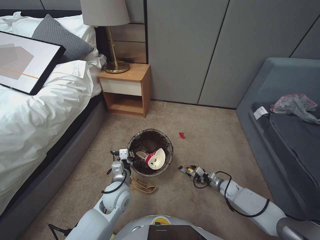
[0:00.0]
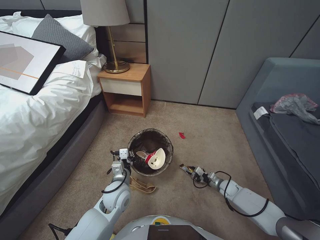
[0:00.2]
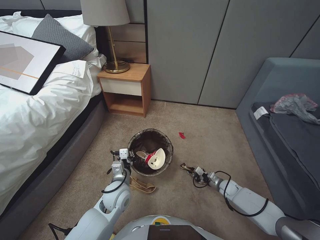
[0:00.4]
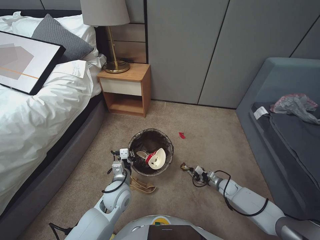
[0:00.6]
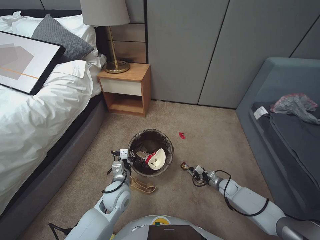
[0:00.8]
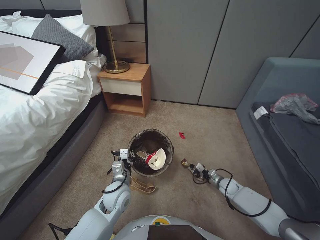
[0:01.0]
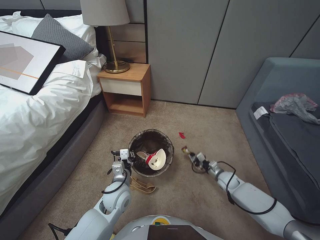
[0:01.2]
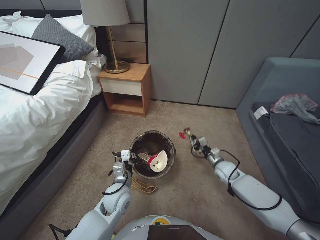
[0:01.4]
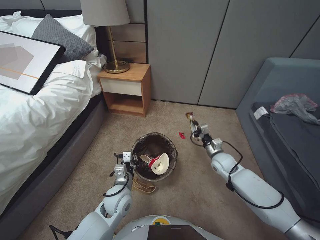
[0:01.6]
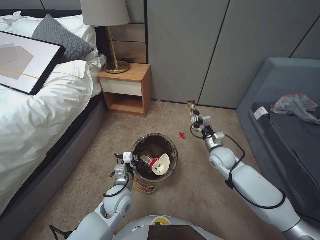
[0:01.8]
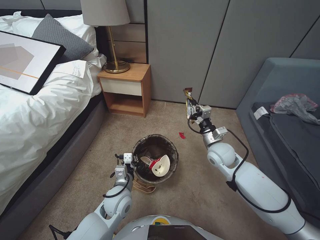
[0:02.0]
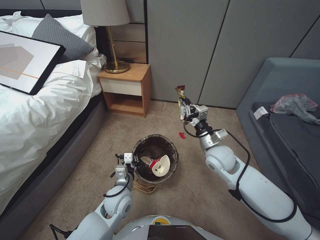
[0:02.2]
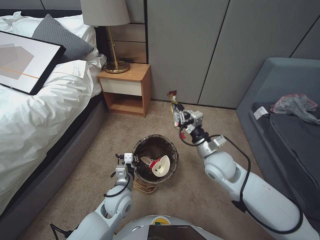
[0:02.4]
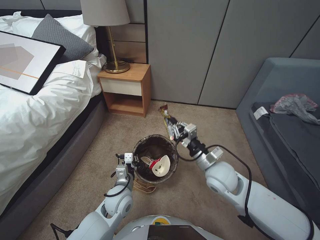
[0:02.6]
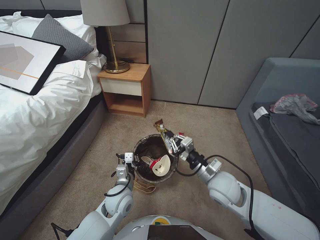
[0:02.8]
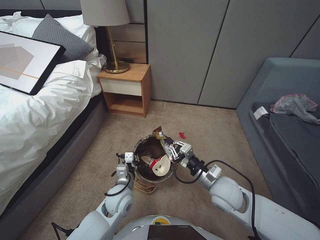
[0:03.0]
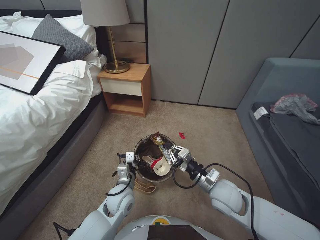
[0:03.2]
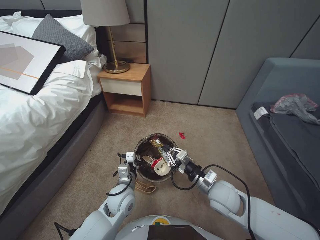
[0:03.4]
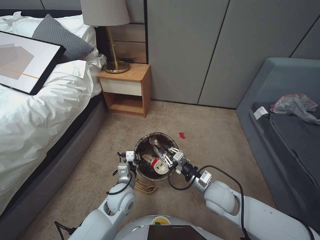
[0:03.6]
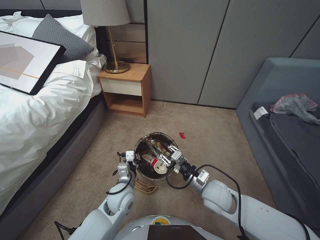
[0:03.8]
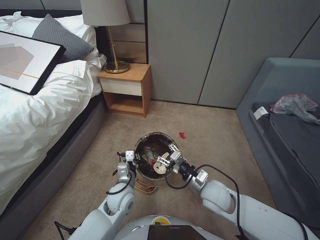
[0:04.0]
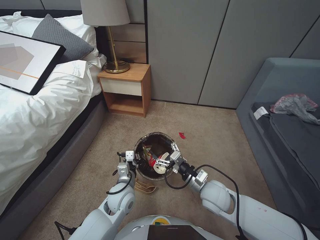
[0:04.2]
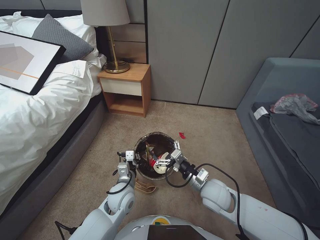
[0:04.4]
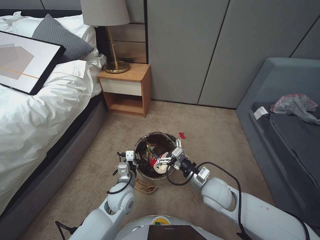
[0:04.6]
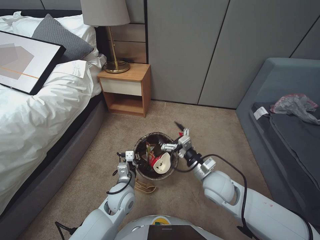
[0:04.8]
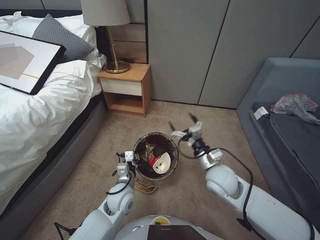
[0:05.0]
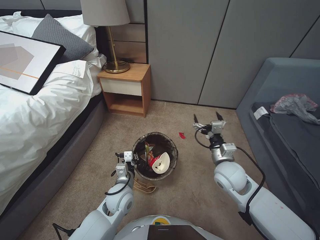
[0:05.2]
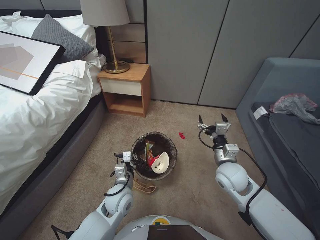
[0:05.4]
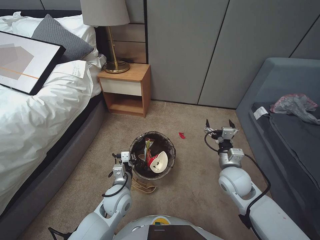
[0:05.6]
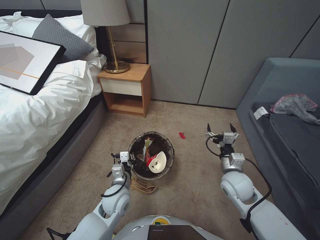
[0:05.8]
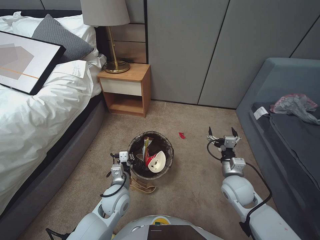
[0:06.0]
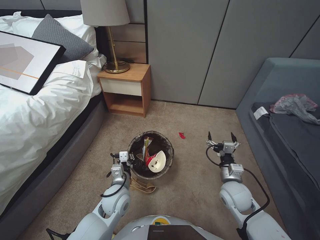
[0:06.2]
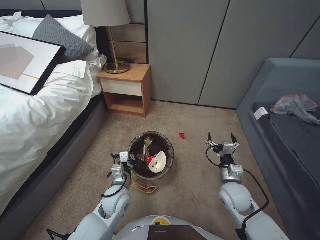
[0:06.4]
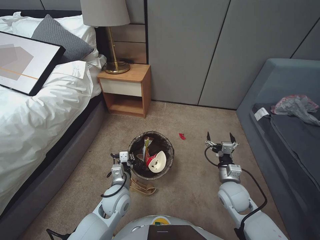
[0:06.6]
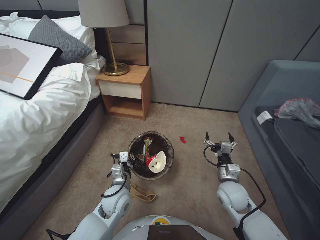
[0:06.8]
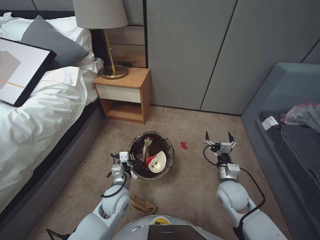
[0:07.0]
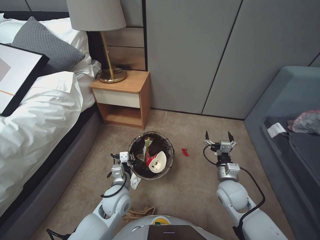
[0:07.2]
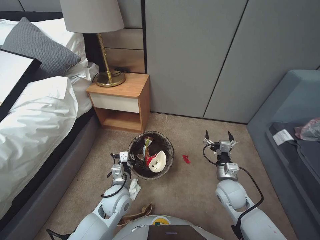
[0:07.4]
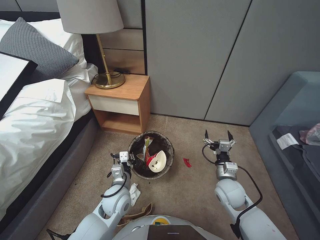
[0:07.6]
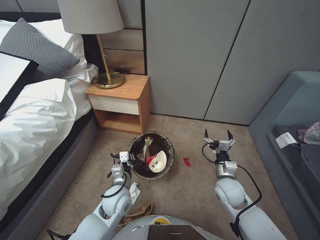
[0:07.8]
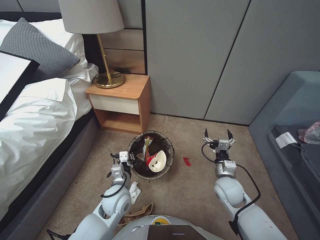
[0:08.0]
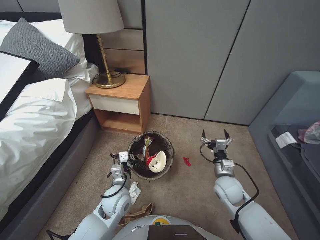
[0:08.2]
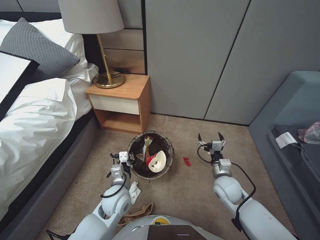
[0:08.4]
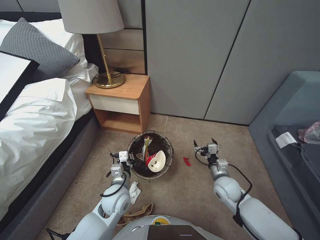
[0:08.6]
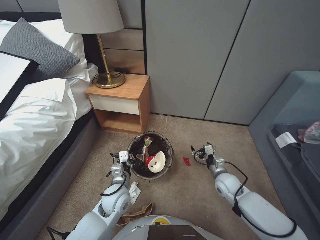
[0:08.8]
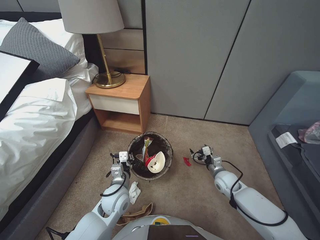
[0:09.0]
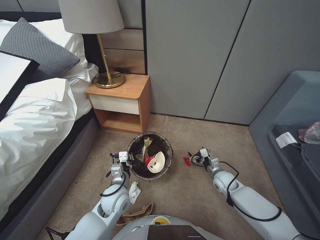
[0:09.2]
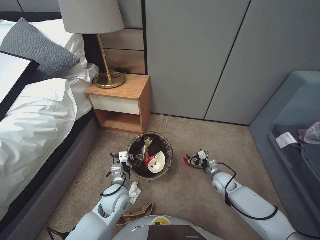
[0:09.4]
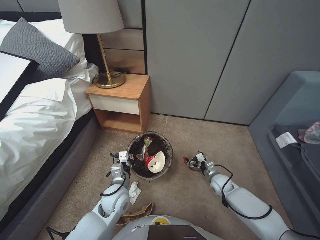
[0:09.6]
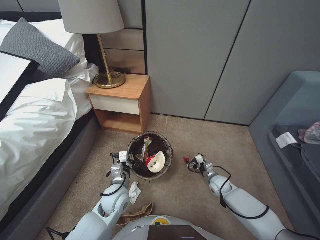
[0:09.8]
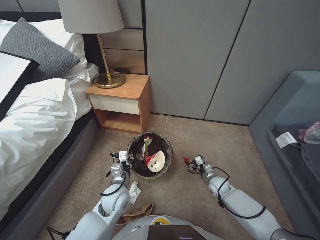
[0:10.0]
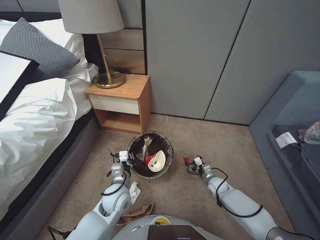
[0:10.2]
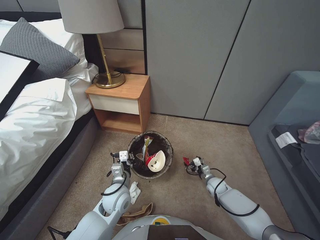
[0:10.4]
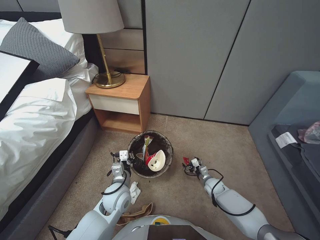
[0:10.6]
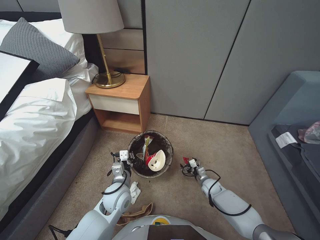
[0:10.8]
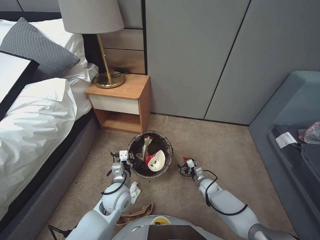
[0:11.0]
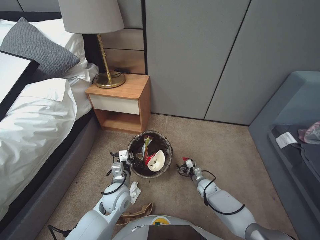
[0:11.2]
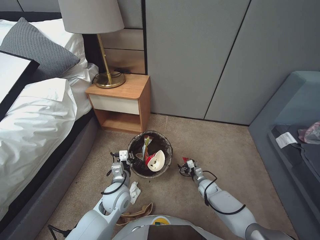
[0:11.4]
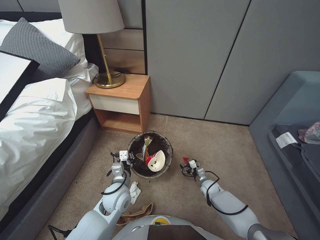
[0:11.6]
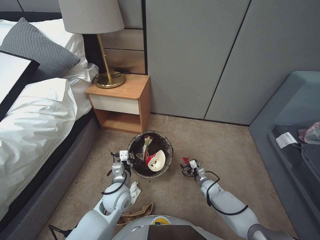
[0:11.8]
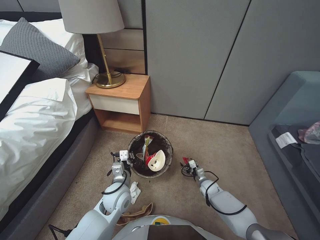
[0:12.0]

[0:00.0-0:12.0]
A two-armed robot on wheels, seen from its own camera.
Task of the whole recording: Pick up the trash bin, then pick up the garbage from the floor and place it into the trash bin.
0:00.0 to 0:01.6: The right gripper shifts about 20 cm upward and to the left, and closes up.
0:01.6 to 0:03.0: The right gripper travels backward, upward and to the left by about 20 cm.
0:03.0 to 0:04.4: The right gripper opens.
0:04.4 to 0:06.0: The right gripper moves to the right, some 5 cm.
0:06.0 to 0:07.6: The right gripper travels downward by about 5 cm.
0:07.6 to 0:09.0: The right gripper goes approximately 5 cm downward.
0:09.0 to 0:10.4: The right gripper goes approximately 15 cm downward.
0:10.4 to 0:12.0: The grippers stay close to where they were, moving slightly.

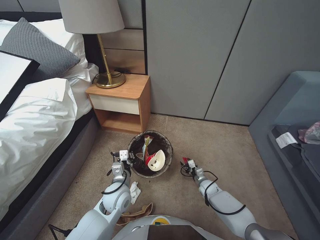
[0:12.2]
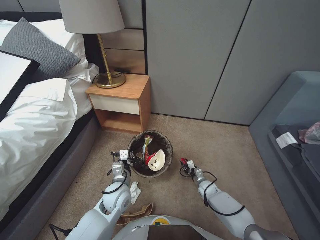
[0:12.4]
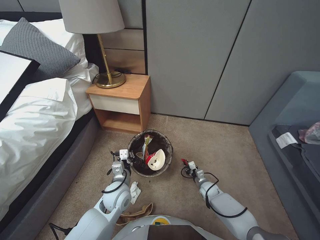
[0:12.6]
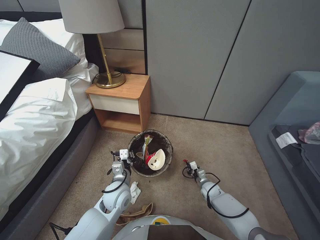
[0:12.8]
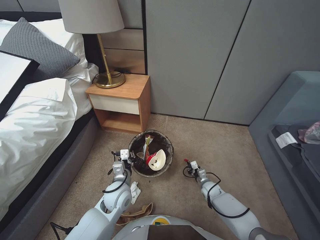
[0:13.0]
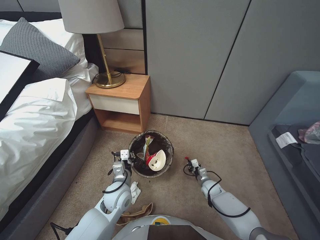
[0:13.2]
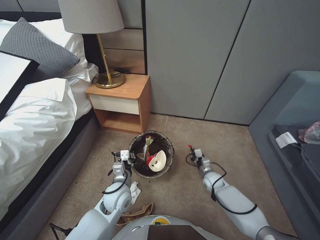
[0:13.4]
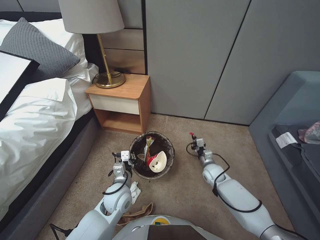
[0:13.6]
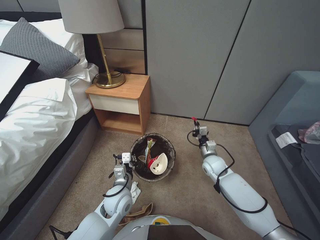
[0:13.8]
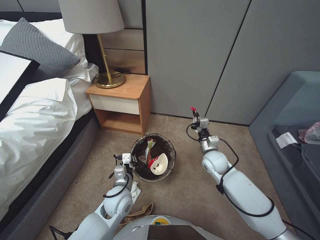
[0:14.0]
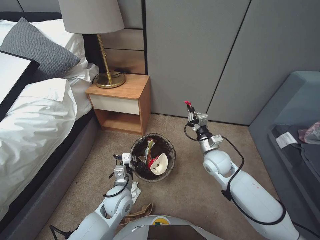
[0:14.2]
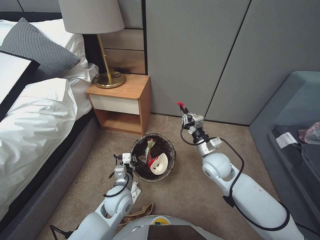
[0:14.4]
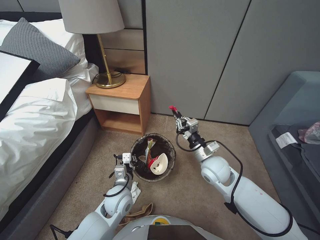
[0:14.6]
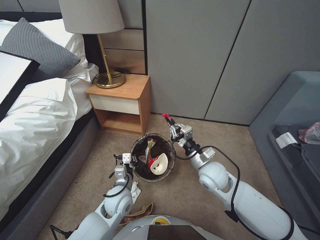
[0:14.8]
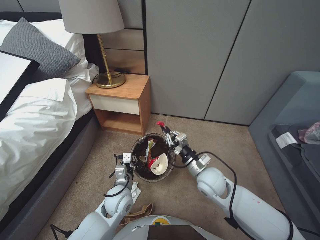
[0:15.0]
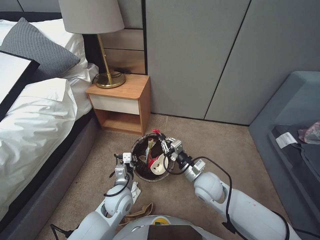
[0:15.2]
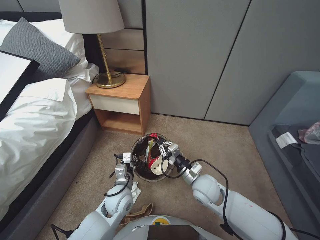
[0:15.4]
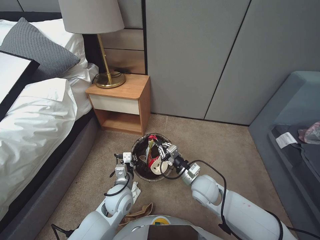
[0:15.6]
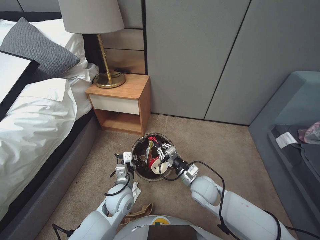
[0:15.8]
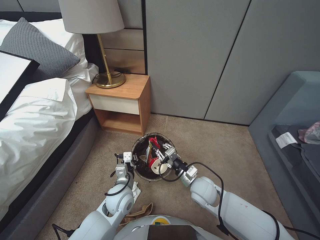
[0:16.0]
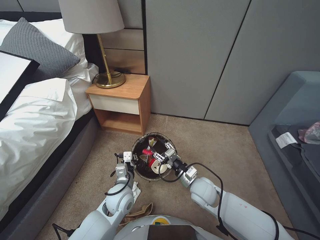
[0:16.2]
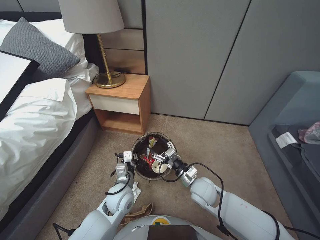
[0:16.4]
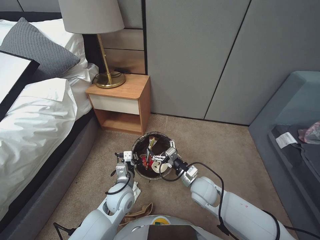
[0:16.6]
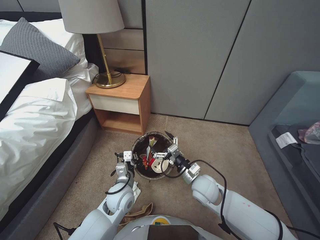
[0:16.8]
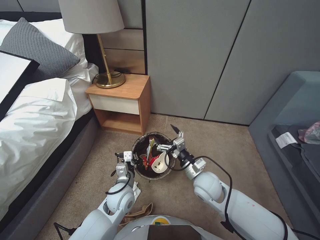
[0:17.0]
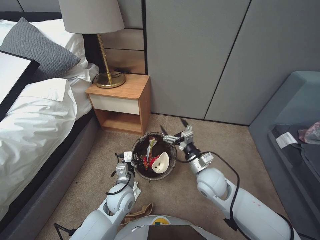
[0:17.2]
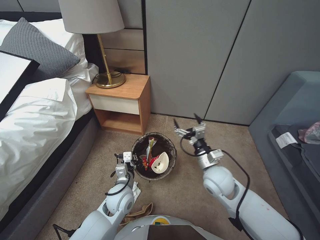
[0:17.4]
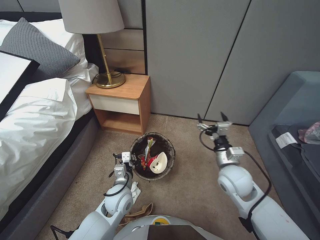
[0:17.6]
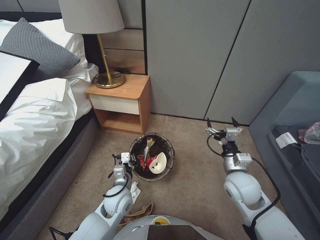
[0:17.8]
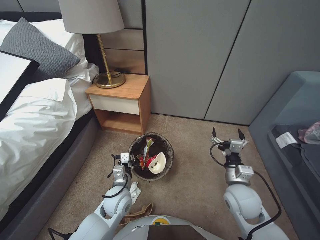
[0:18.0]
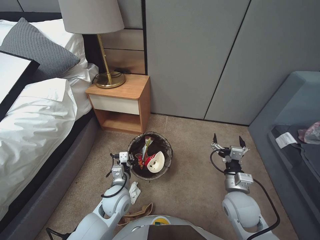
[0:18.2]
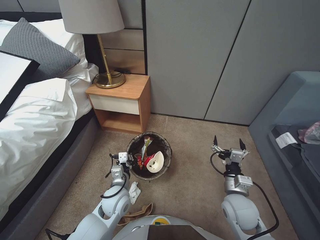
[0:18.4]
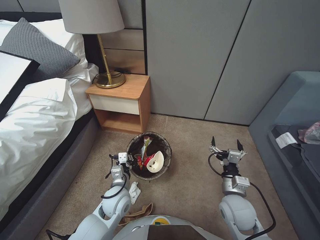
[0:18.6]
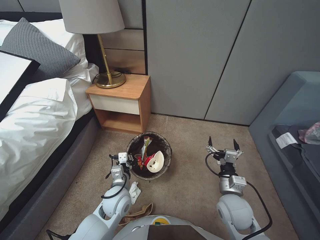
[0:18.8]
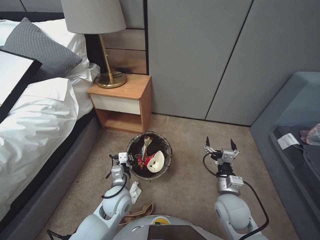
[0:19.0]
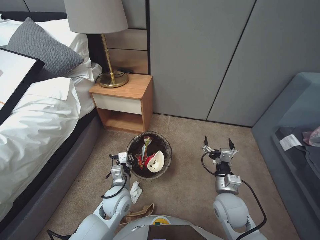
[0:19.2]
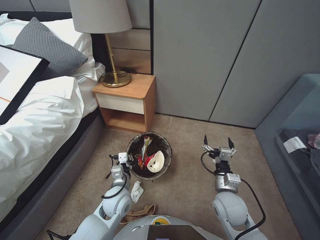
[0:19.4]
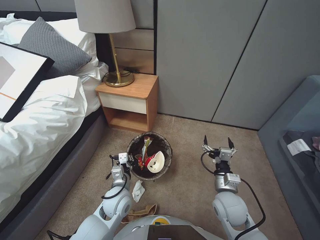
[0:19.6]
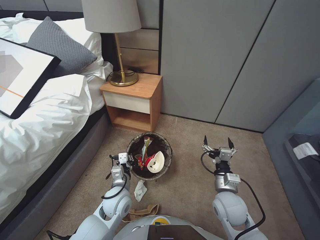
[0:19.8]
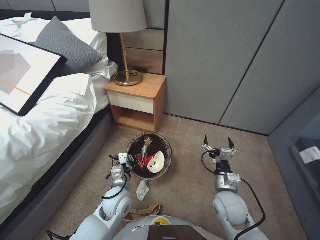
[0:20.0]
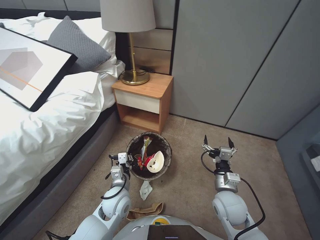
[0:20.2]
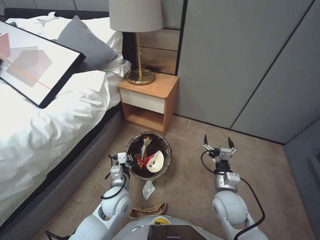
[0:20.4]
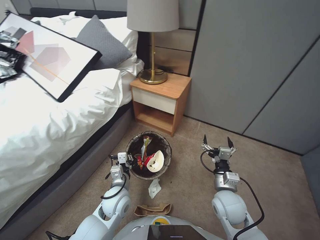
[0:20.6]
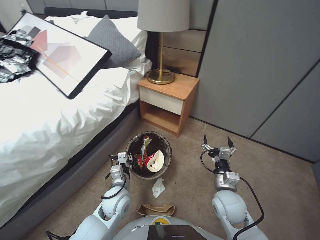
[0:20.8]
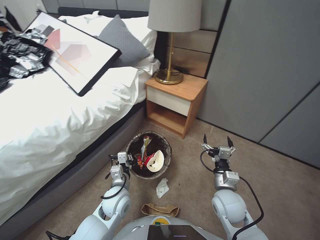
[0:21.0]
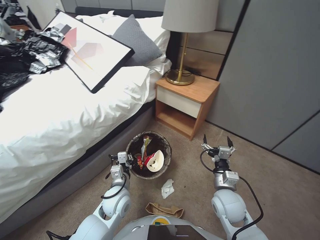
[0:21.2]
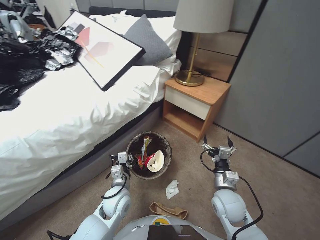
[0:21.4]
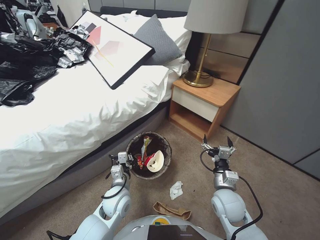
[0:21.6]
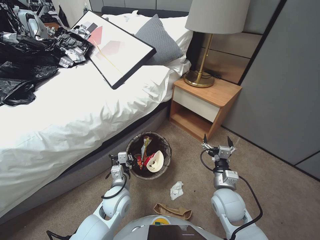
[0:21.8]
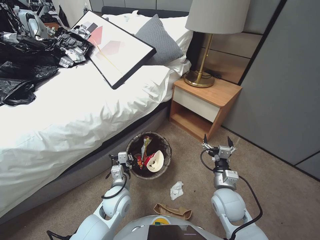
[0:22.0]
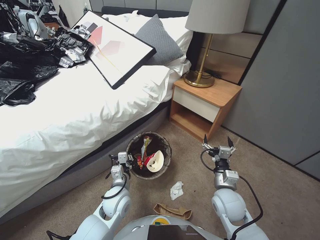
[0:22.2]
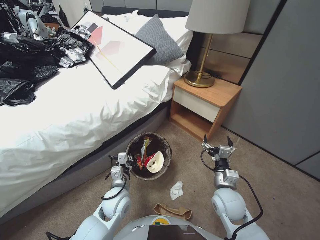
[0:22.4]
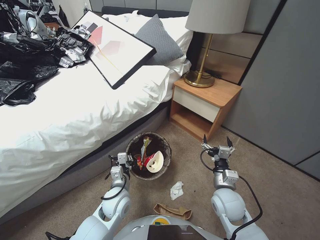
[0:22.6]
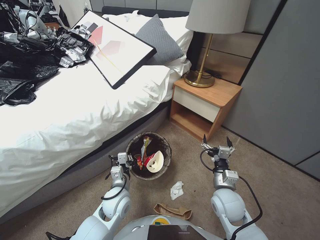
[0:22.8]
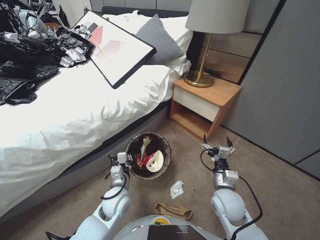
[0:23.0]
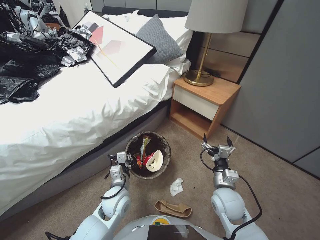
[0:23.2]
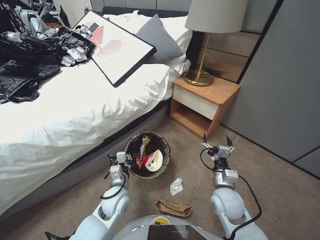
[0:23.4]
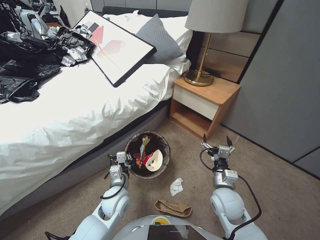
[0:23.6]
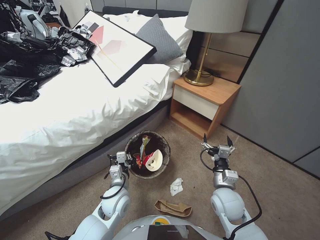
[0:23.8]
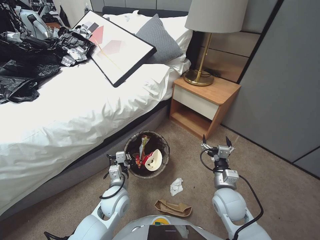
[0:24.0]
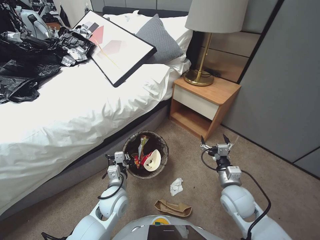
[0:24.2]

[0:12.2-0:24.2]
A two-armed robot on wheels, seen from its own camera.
Task of the whole recording: Pick up the trash bin, then pick up the garbage from the floor and place it into the trash bin.
0:12.2 to 0:13.8: The right gripper travels upward by about 15 cm, and closes up.
0:13.8 to 0:15.2: The right gripper travels backward, upward and to the left by some 20 cm.
0:15.2 to 0:16.6: The right gripper opens its fingers.
0:16.6 to 0:18.2: The right gripper heads to the right, backward and upward, covering approximately 10 cm.
0:22.6 to 0:24.2: Both grippers stay put.
